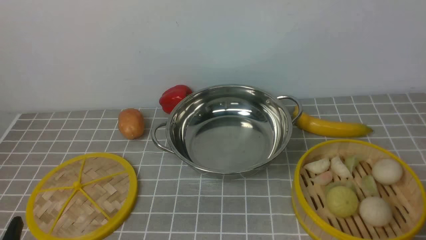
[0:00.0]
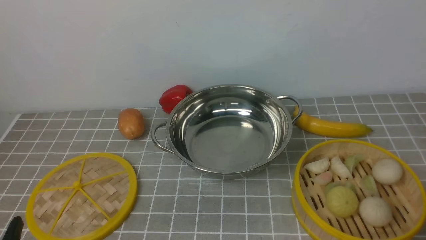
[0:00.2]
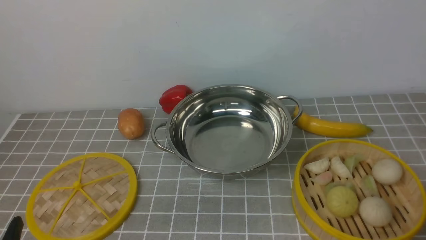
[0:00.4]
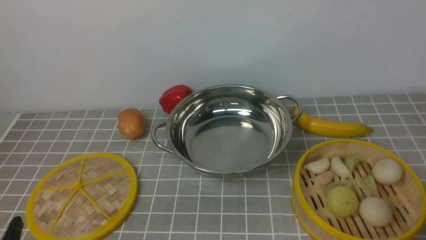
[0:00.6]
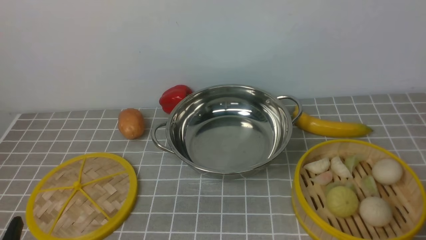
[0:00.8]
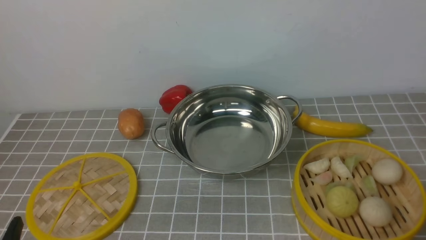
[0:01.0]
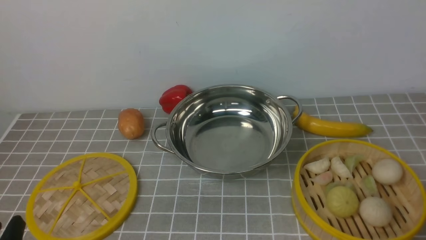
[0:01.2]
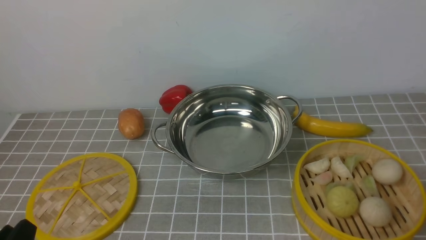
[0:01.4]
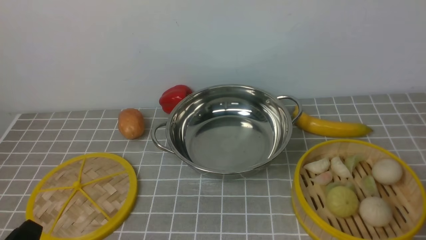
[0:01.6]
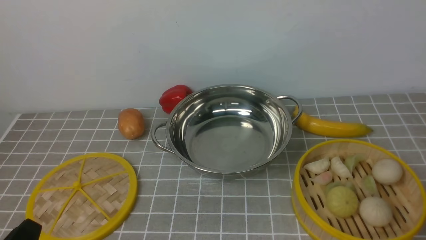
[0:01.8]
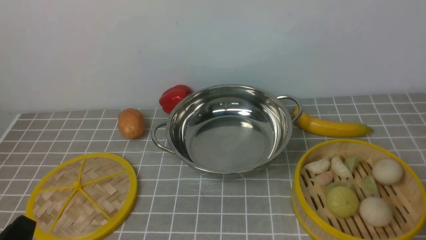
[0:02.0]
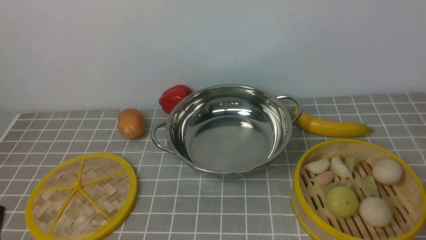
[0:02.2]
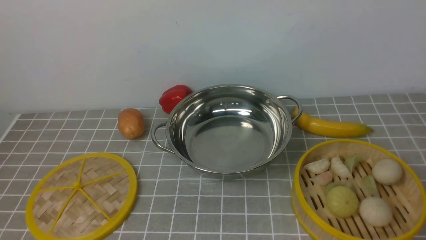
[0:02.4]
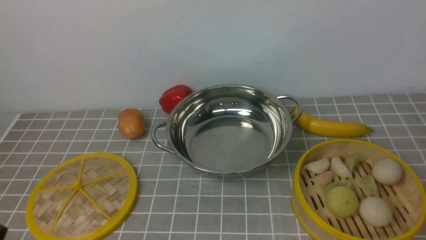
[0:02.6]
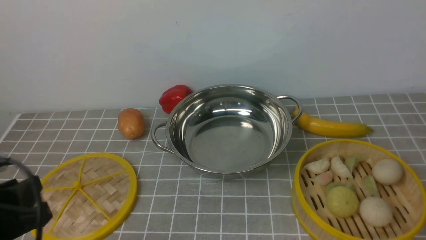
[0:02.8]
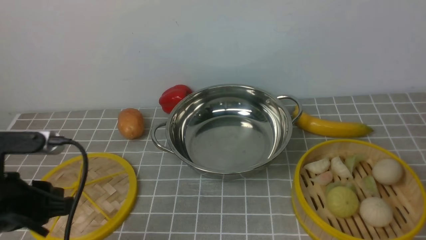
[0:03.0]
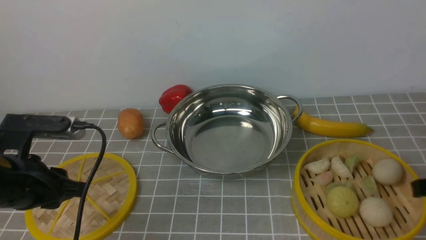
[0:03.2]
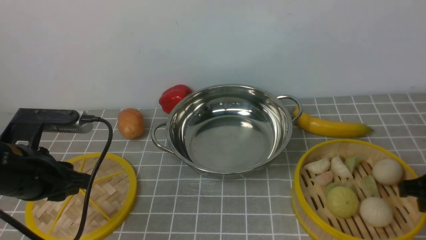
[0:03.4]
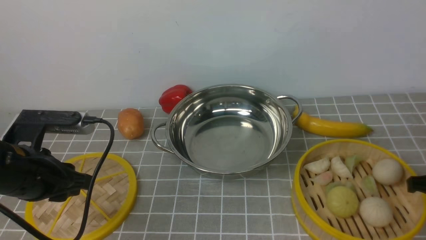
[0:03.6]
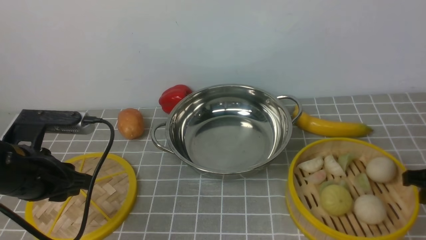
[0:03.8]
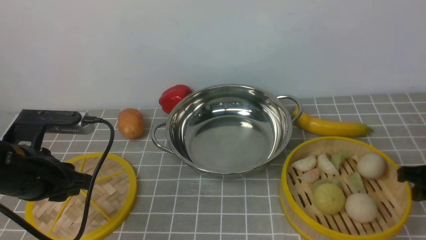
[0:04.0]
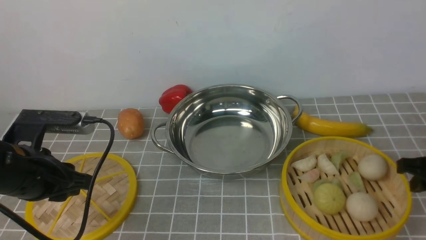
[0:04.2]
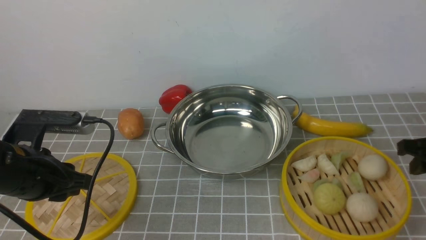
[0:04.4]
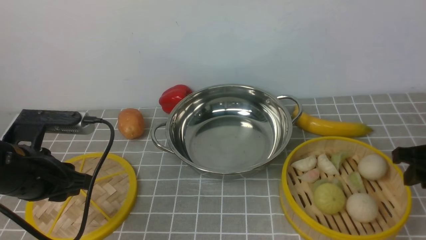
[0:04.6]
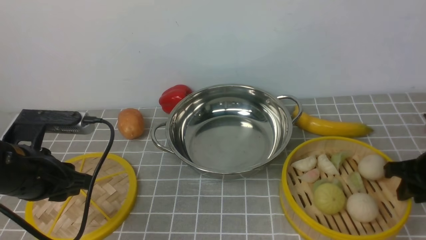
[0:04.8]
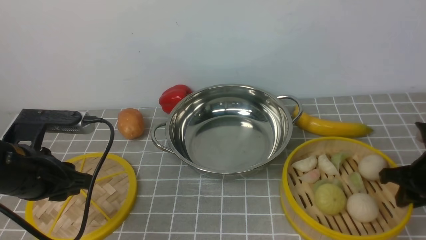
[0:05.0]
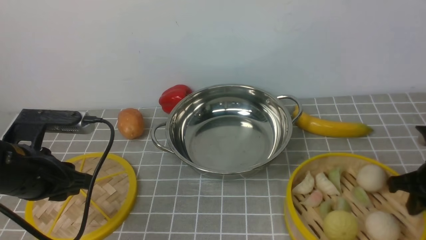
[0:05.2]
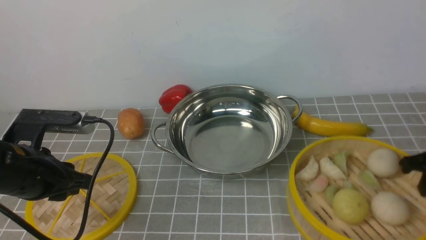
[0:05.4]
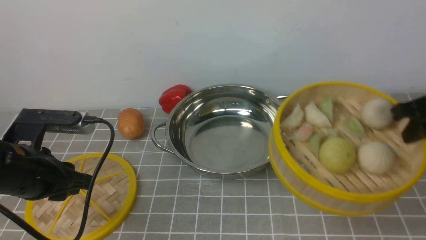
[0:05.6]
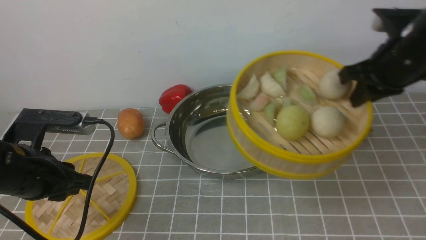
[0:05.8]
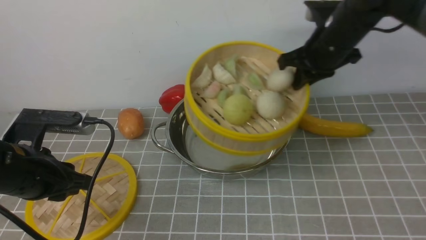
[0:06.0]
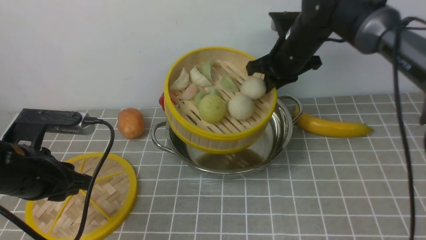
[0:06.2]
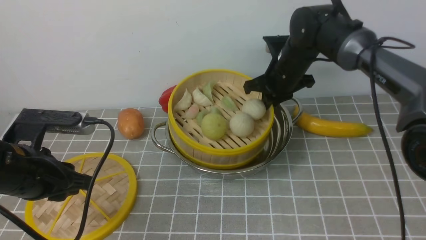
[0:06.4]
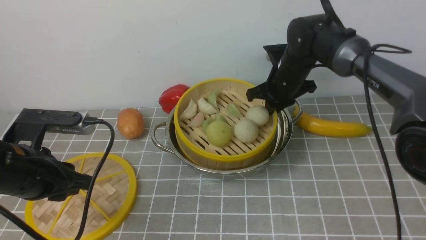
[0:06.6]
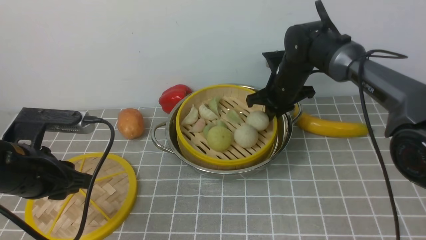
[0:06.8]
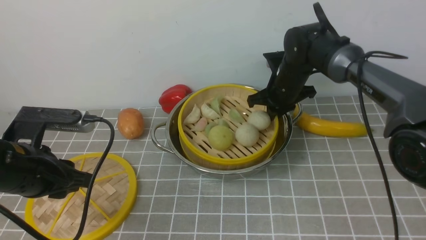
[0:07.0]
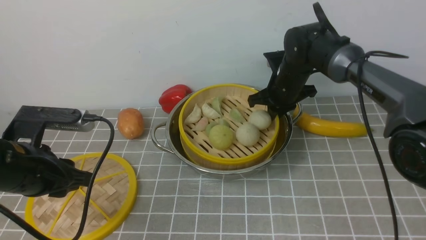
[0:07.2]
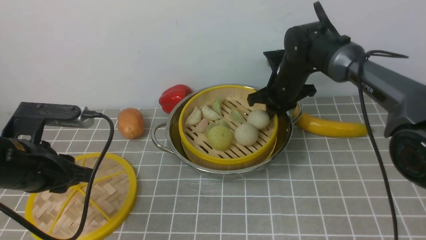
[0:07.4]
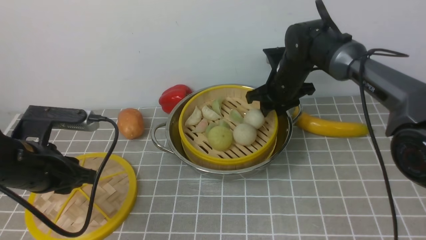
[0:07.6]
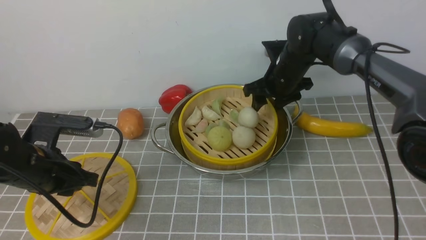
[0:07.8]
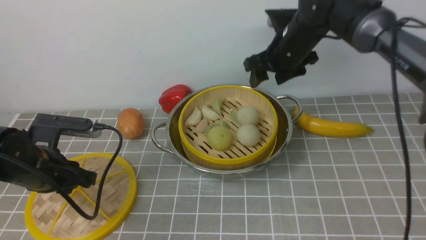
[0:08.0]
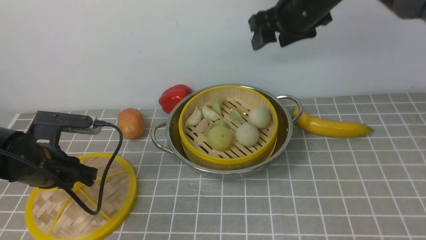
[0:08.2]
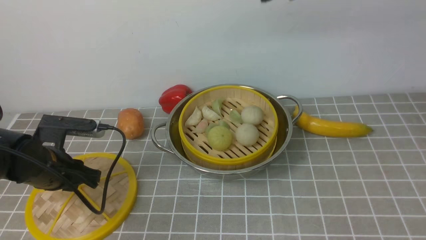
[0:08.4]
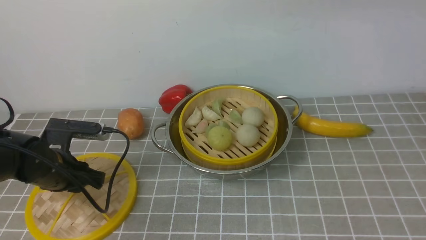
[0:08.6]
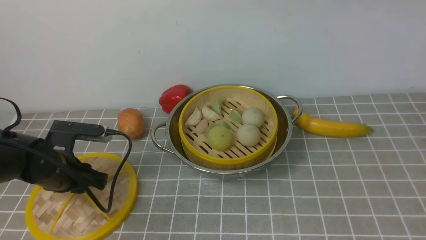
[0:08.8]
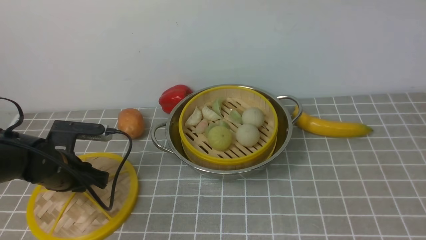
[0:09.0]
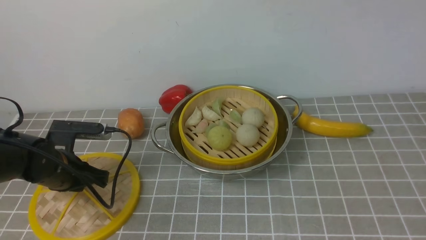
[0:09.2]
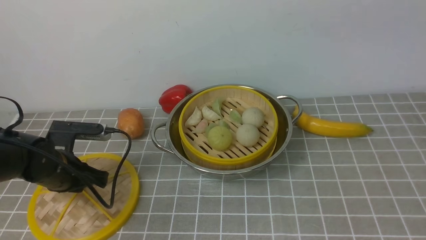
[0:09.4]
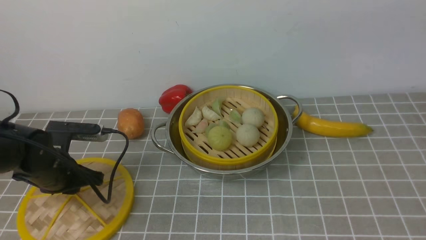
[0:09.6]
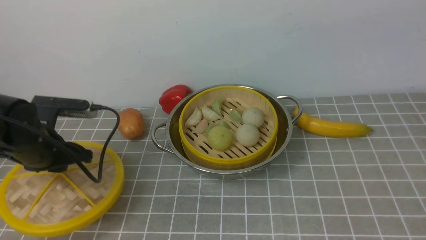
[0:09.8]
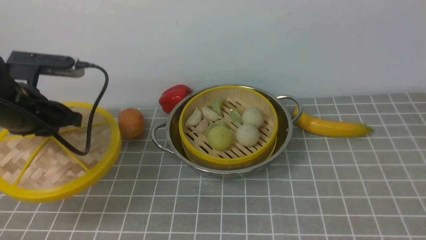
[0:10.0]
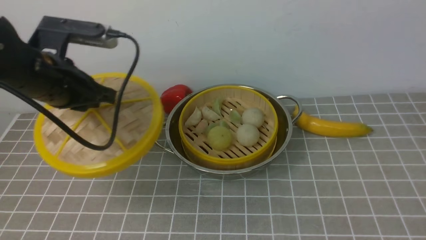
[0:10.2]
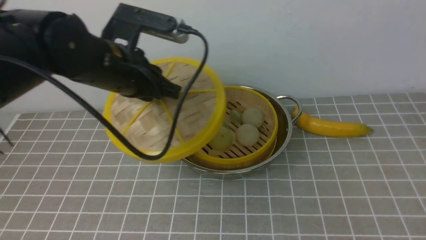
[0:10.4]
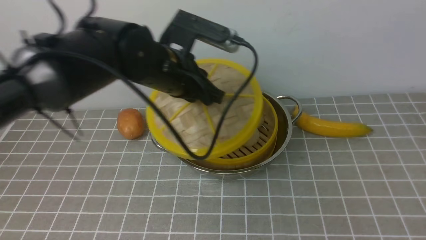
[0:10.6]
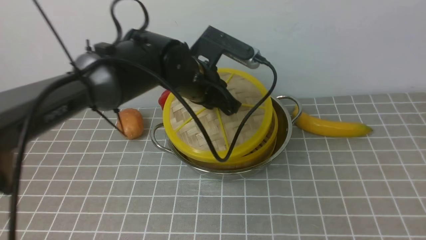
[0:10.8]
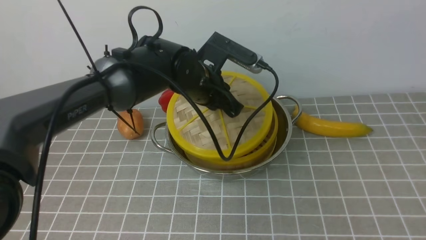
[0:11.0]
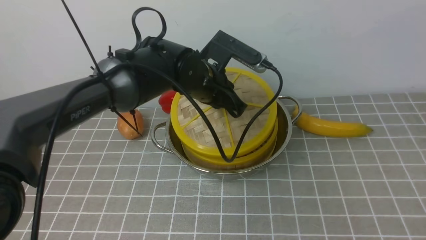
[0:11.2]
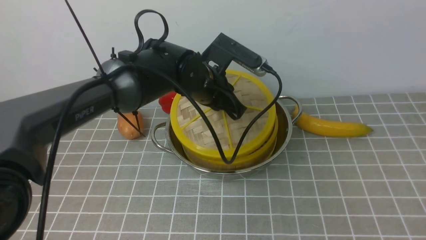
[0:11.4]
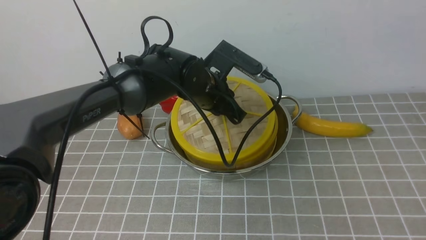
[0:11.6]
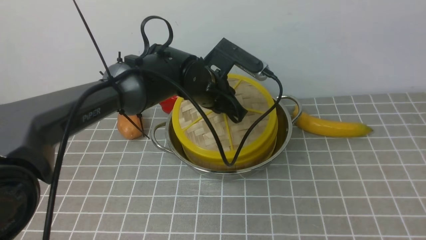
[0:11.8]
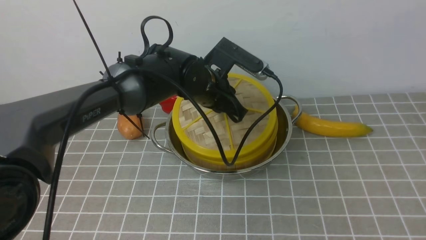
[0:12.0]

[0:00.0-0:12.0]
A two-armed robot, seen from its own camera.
Task of the whole recording: place the steamer in the pot on the grey tablecloth, and put the lid on the steamer.
Step, 0:00.0 to 0:05.2: use the right arm to lift the steamer closest to it.
Step, 0:05.4 to 0:07.8: use the right arm to put the steamer into the iron steamer pot in the middle.
0:01.6 to 0:03.0: The left gripper moves forward and upward, approximately 15 cm.
0:03.0 to 0:04.4: The right gripper heads forward and downward, covering roughly 10 cm, while the left gripper goes roughly 5 cm forward.
0:04.4 to 0:06.0: The right gripper moves forward, to the left and upward, about 25 cm, and closes.
0:06.0 to 0:07.6: The right gripper heads downward, forward and to the left, covering approximately 10 cm, and opens its fingers.
0:07.6 to 0:09.0: The left gripper shifts approximately 10 cm downward and forward. The right gripper is displaced upward and backward by roughly 50 cm.
0:09.0 to 0:10.4: The right gripper moves backward and to the right, roughly 10 cm; the left gripper shifts roughly 20 cm upward and to the right.
0:10.4 to 0:12.0: The left gripper heads to the right, downward and forward, covering some 15 cm.

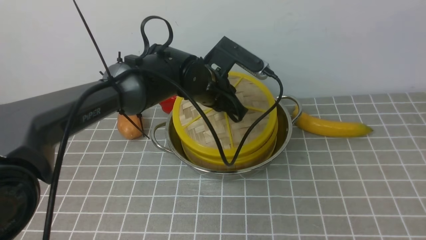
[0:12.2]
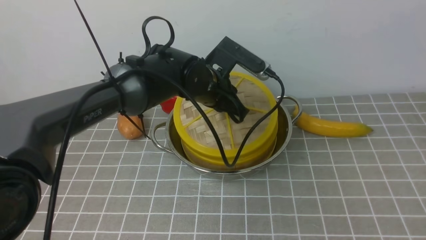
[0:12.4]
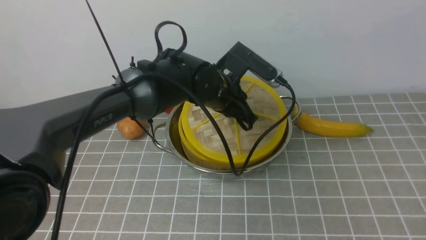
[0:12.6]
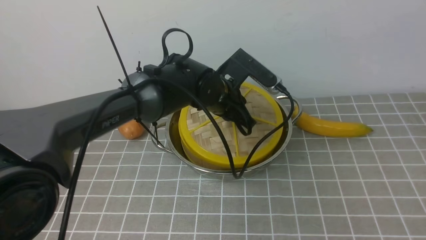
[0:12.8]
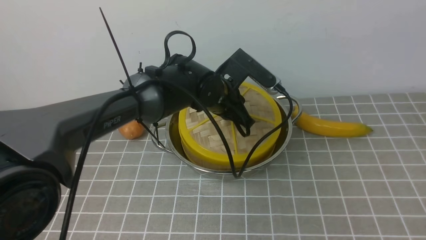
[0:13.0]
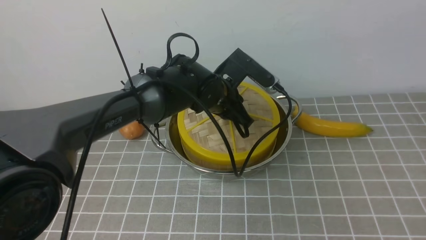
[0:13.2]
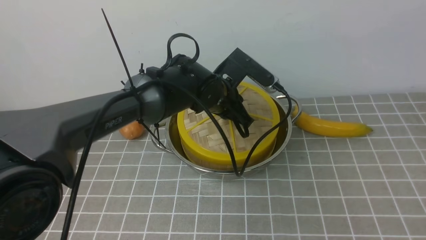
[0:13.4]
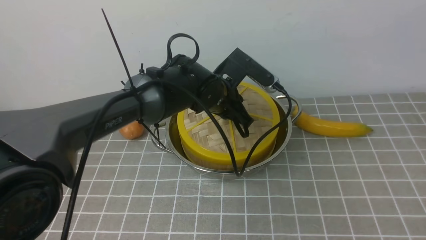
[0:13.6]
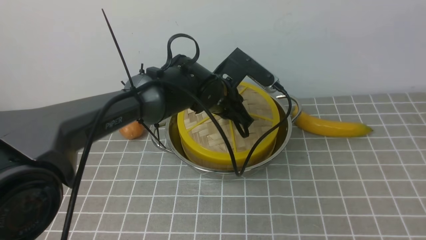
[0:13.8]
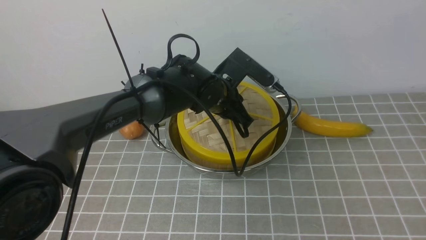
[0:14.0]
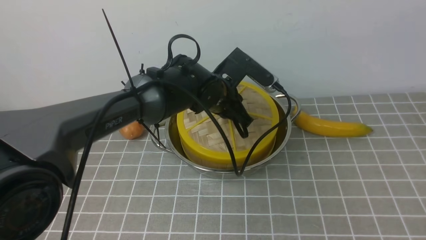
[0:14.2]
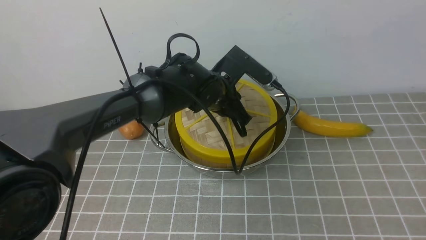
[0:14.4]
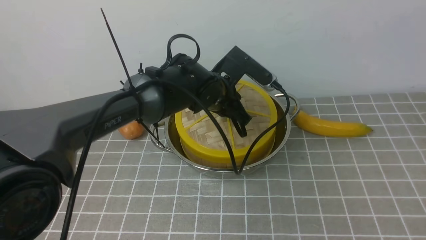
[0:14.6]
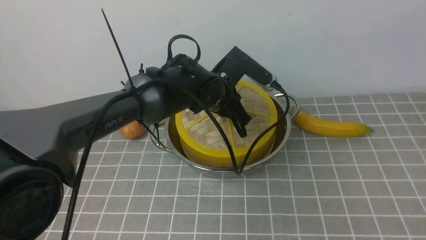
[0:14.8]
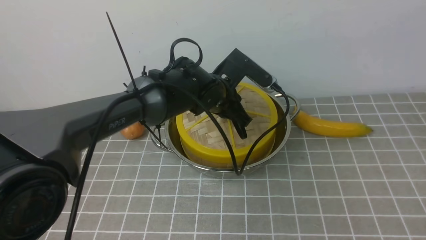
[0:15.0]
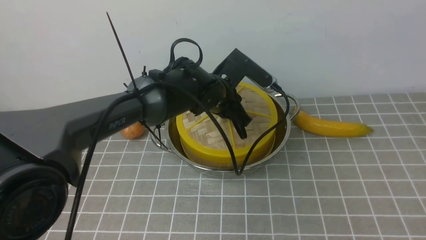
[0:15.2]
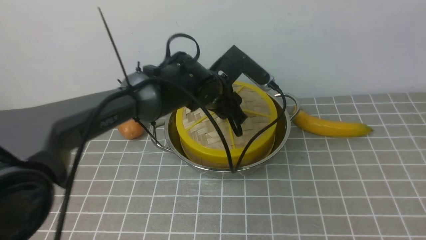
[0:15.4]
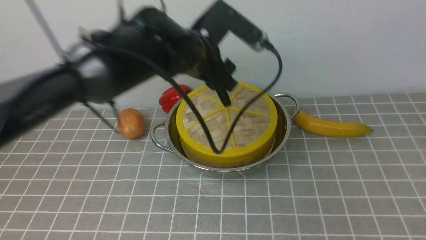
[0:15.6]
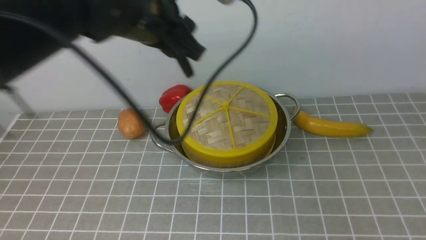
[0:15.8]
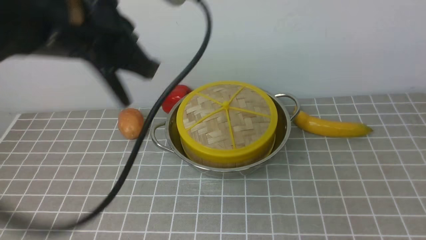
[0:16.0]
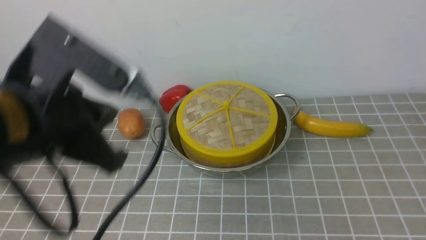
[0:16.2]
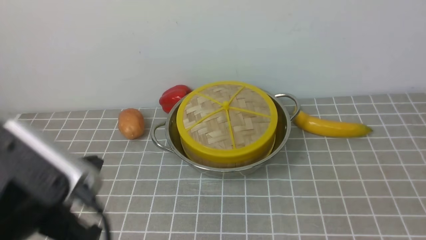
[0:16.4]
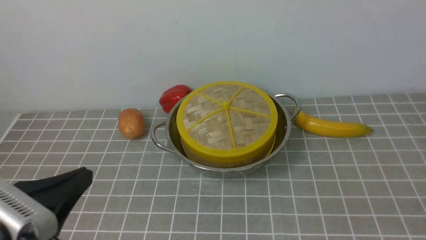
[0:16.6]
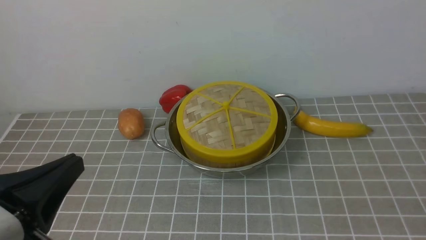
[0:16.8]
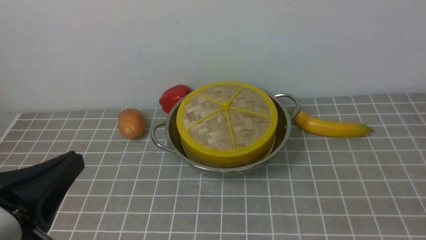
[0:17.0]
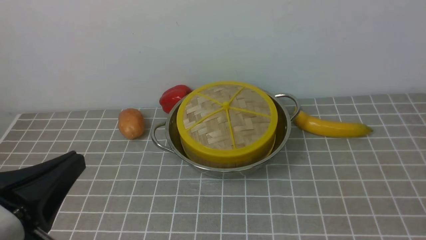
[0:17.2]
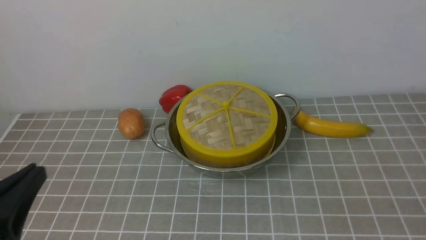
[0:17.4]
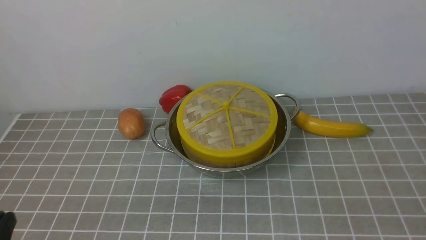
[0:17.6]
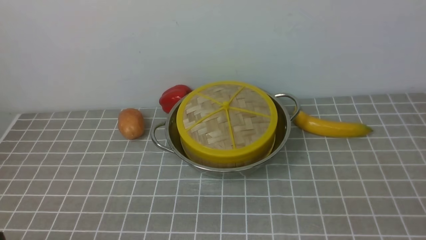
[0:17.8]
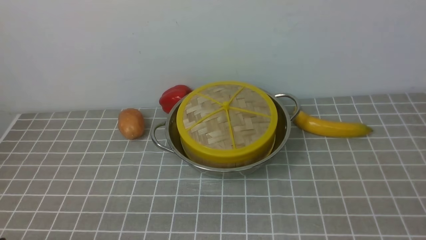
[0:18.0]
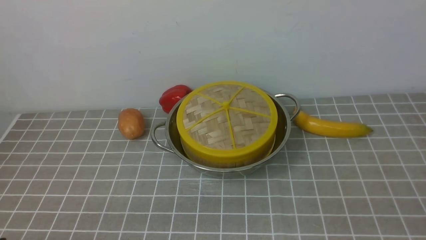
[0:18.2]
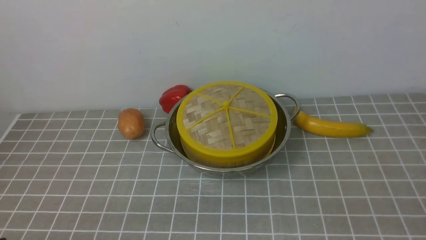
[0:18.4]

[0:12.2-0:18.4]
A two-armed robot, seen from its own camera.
Task of the whole recording: place the steamer in the pot on the grey tablecloth, and put the lid on the steamer.
Step, 0:12.2 to 0:15.4: use the left arm to place the steamer lid on the steamer.
0:12.2 to 0:13.8: There are only small adjustments of the grippers.
0:13.8 to 0:15.4: The left gripper opens its fingers.
0:15.4 to 0:16.8: The right gripper is displaced downward and backward by about 30 cm, and closes. The left gripper is displaced backward and to the left by about 35 cm, and closes its fingers.
0:16.8 to 0:18.4: The left gripper goes about 15 cm downward and to the left.
